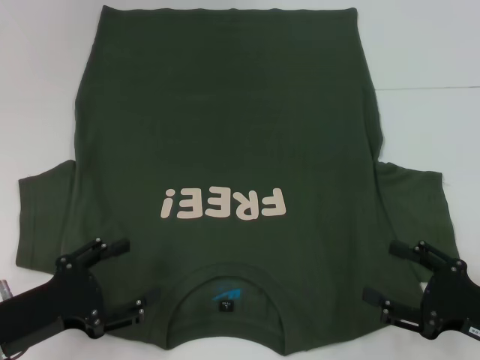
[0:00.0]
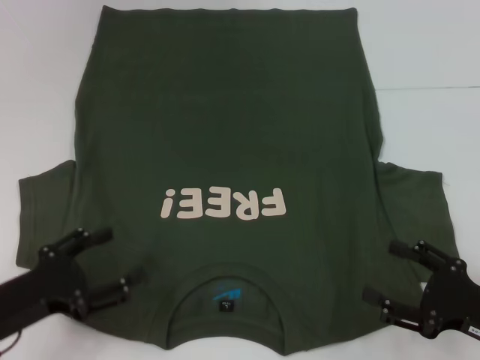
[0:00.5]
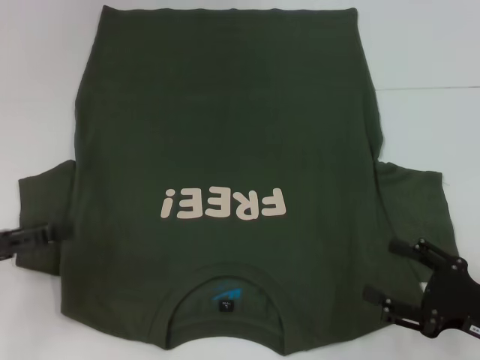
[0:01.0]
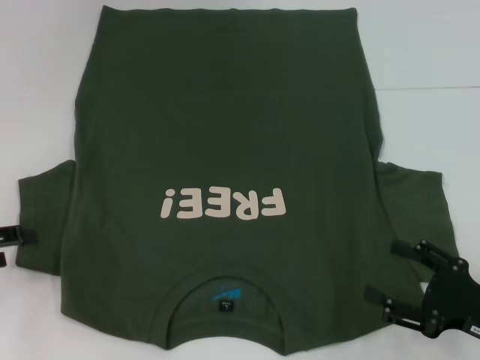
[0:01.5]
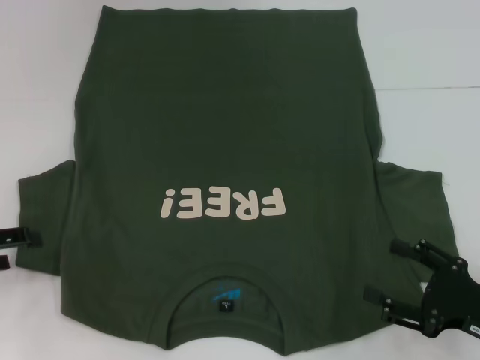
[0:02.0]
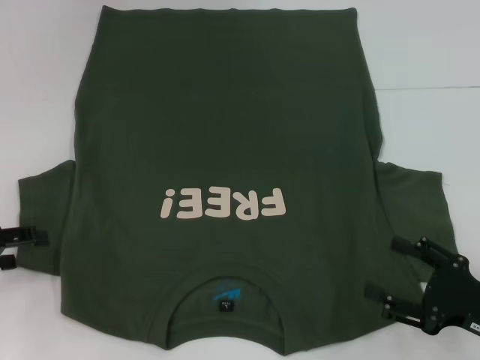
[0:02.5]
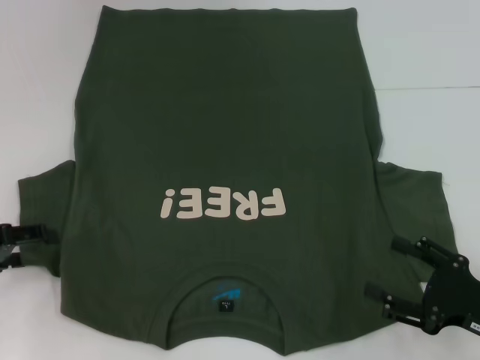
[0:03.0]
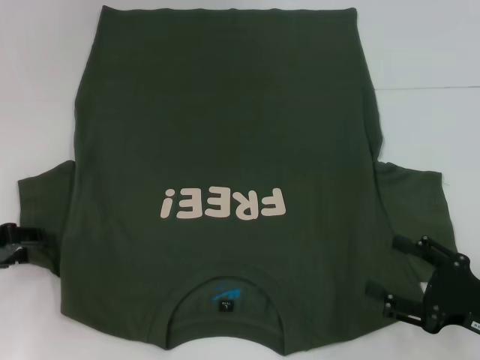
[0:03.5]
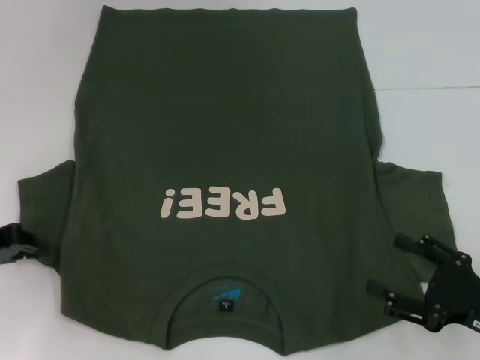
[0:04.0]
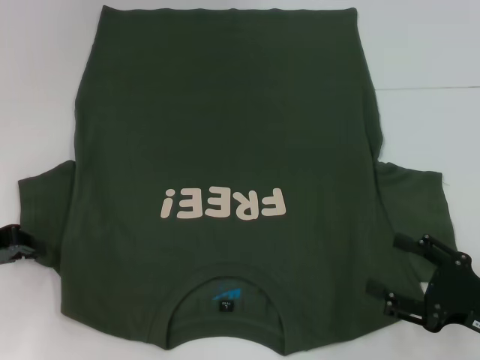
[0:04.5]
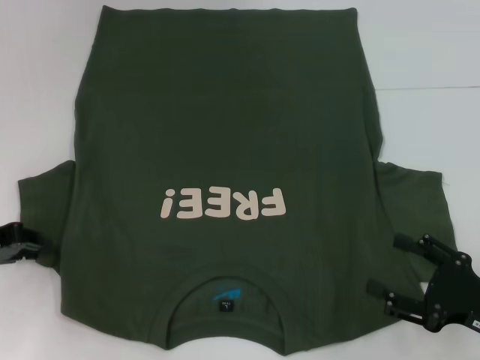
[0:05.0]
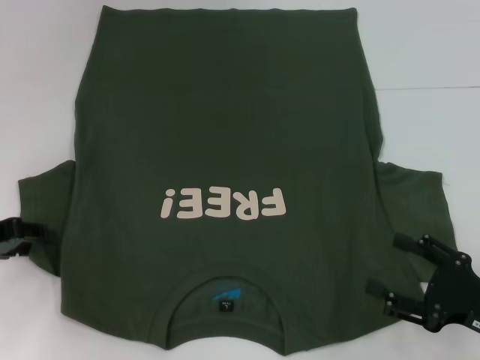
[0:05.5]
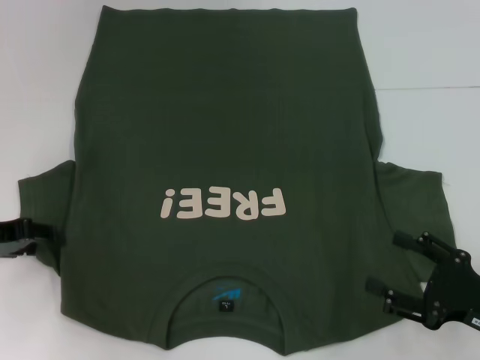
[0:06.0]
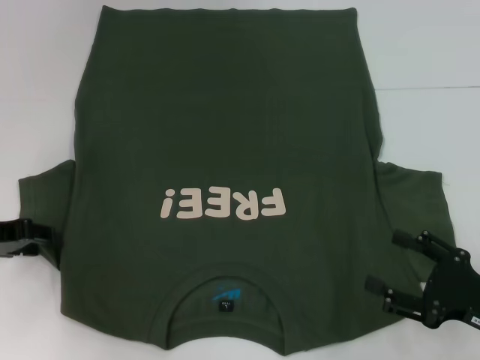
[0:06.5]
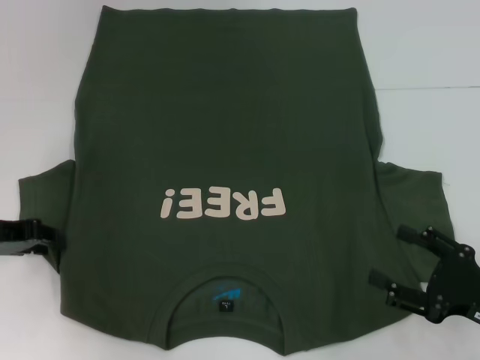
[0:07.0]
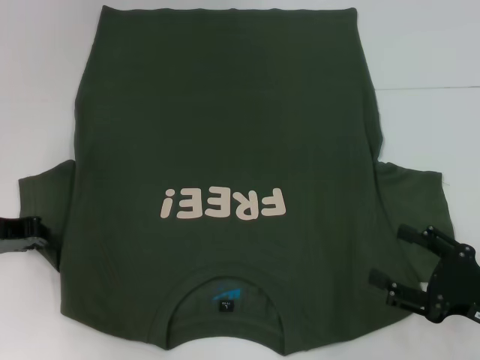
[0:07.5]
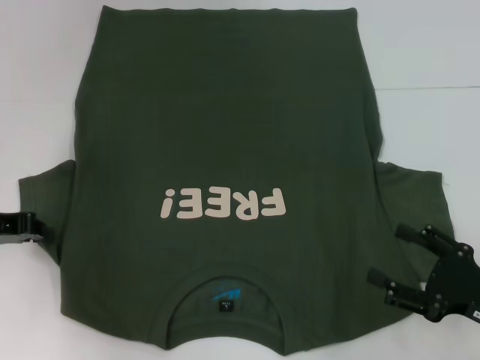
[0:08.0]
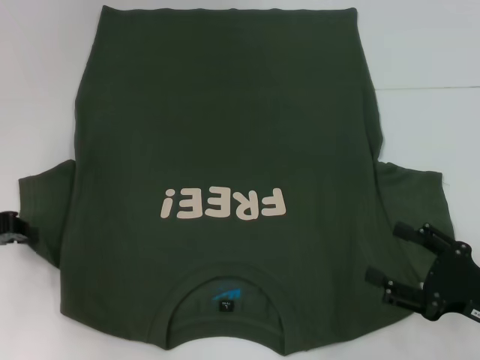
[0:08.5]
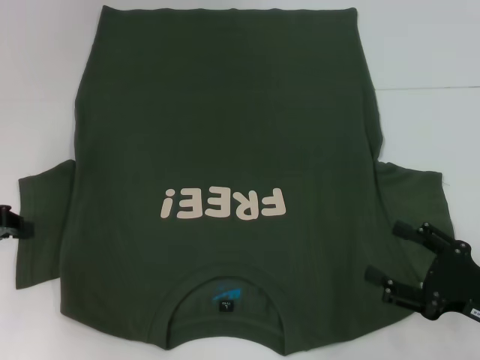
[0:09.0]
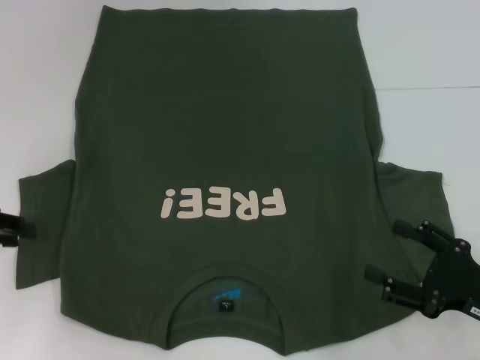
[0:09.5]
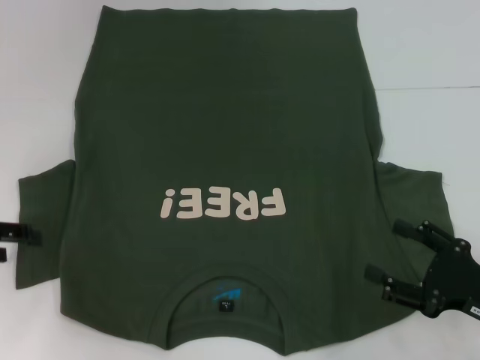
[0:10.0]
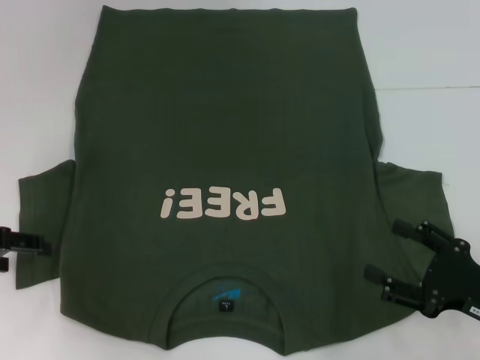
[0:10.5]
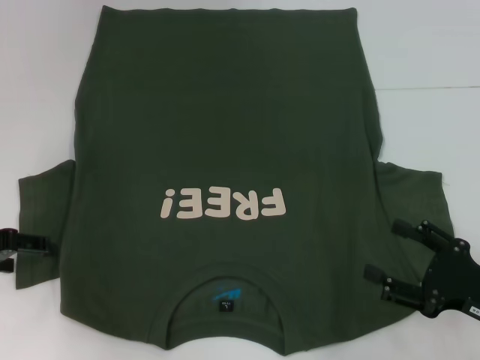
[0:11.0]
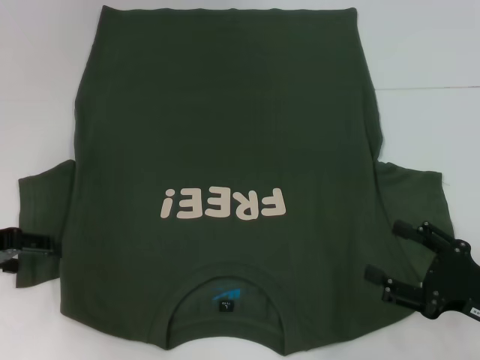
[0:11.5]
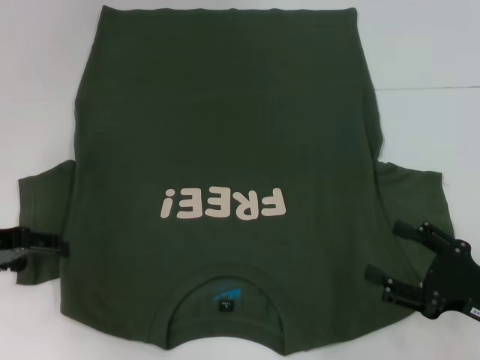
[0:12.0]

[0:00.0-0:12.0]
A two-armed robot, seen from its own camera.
0:00.0 to 0:02.0: The left gripper goes approximately 15 cm to the left, forward and upward.
0:02.0 to 0:04.0: The left gripper closes.
0:04.0 to 0:06.0: The grippers stay close to where they were, moving slightly.
0:06.0 to 0:08.0: The left gripper closes up.
0:08.0 to 0:10.0: The left gripper opens up.
0:10.0 to 0:12.0: The grippers make only small movements.

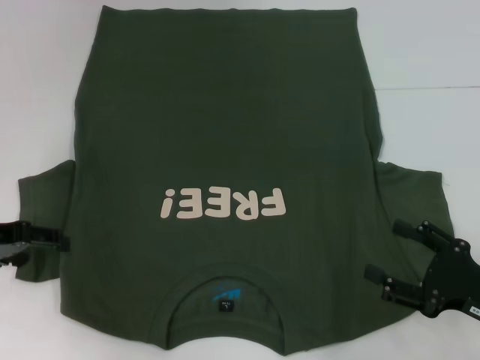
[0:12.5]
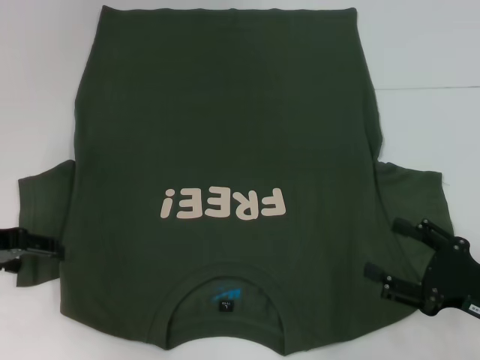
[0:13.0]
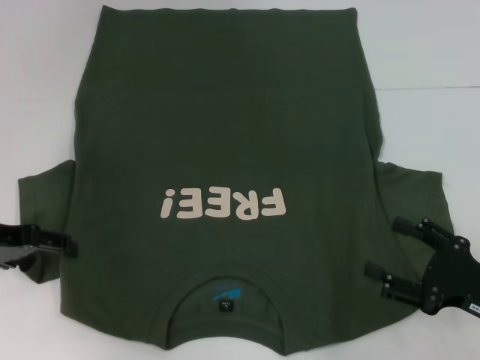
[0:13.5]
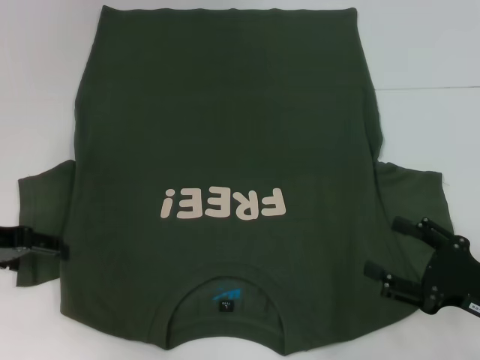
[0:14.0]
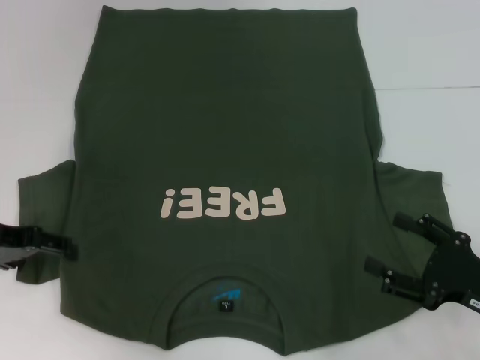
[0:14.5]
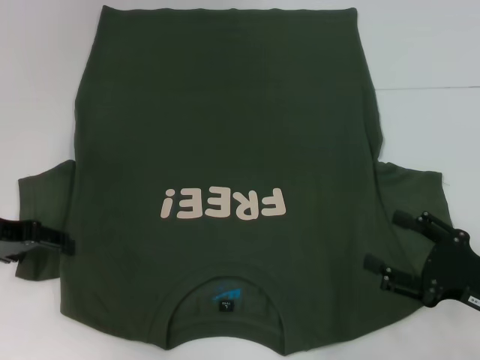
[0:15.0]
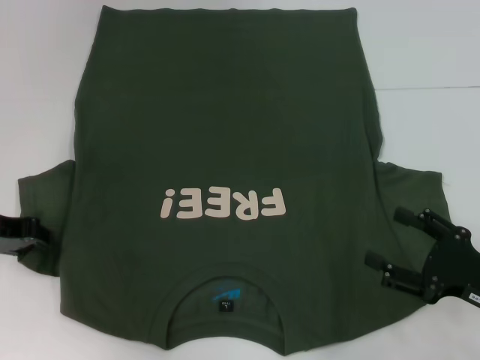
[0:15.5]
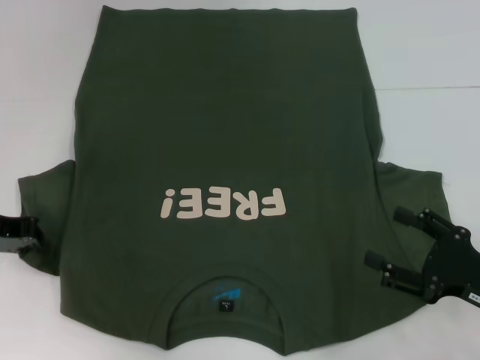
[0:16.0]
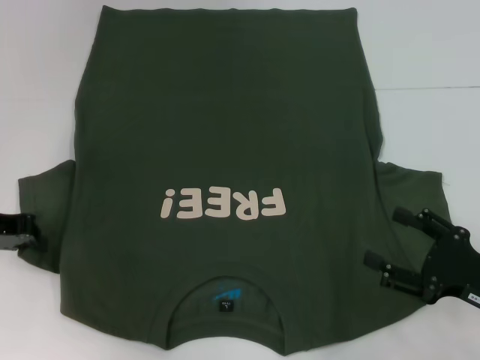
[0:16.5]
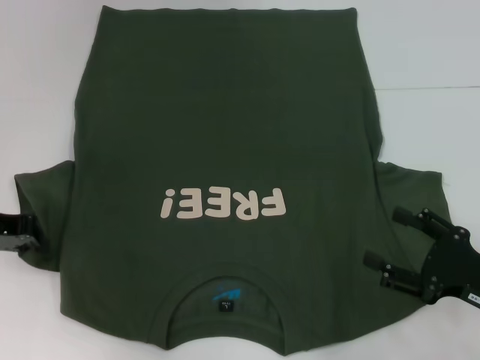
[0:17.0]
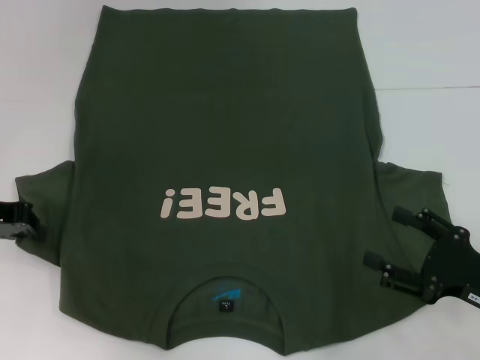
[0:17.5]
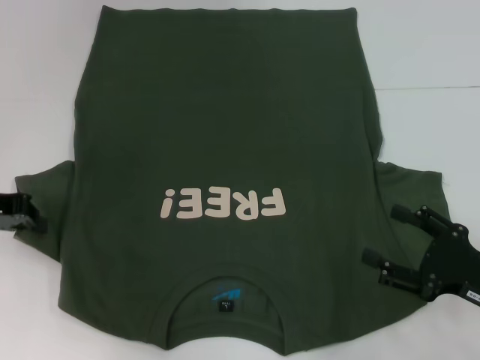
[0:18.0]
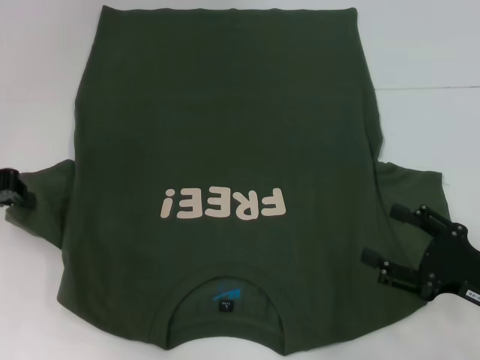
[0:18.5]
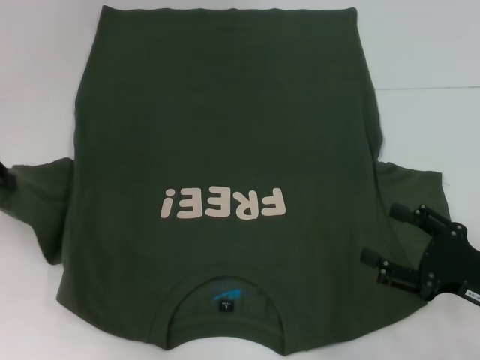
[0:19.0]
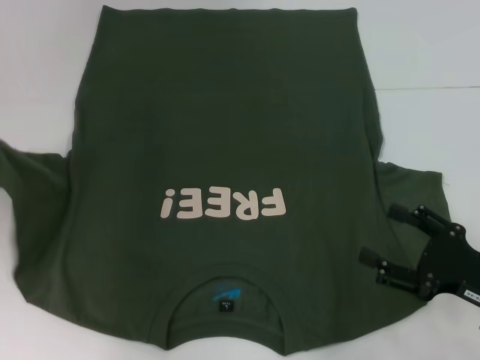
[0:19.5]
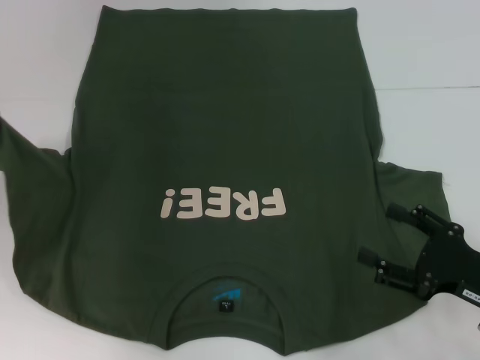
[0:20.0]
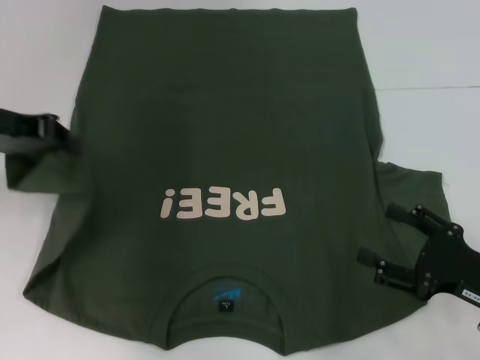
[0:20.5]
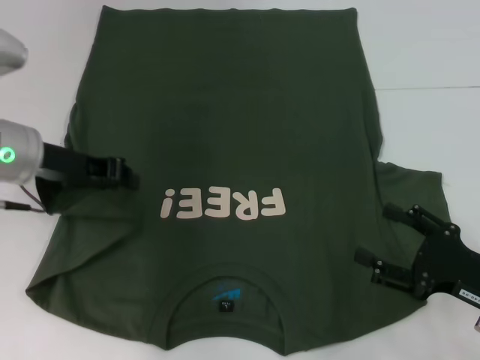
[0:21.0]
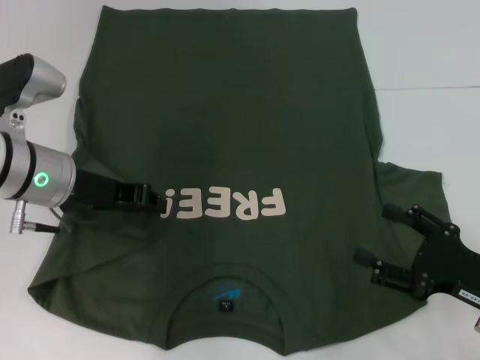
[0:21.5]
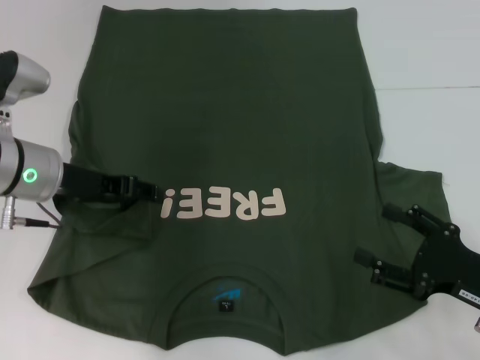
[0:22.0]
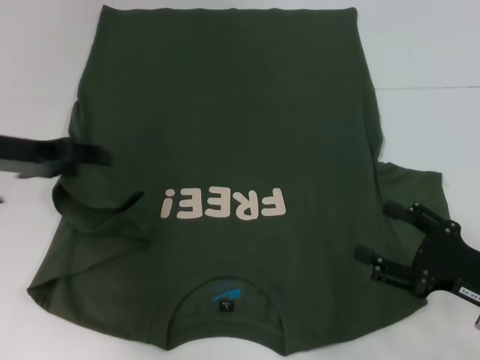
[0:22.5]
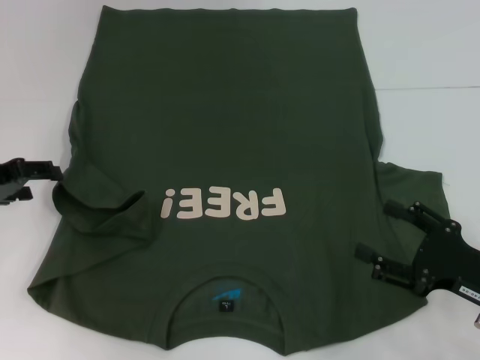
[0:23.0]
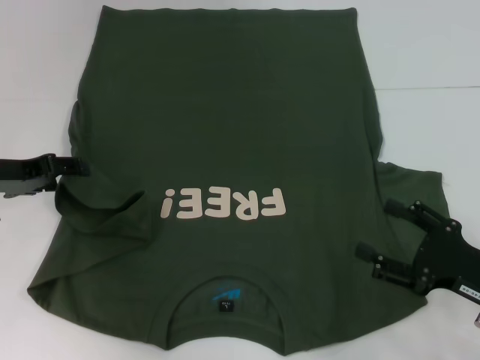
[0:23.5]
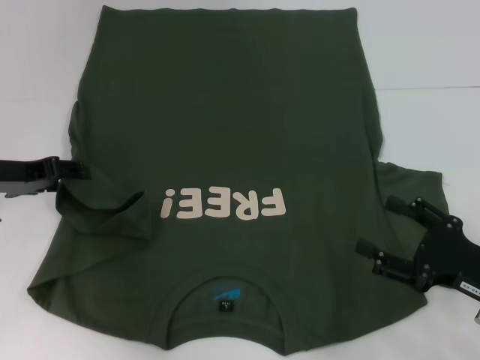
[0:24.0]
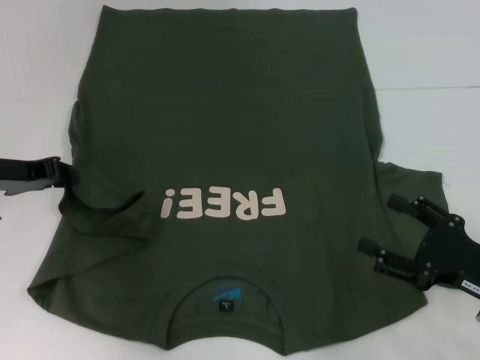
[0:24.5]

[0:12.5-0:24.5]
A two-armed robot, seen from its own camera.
0:12.5 to 0:14.5: The grippers make only small movements.
0:14.5 to 0:16.5: The left gripper closes up.
0:16.5 to 0:18.5: The left gripper ends up approximately 5 cm from where it was.
0:18.5 to 0:20.5: The left gripper moves roughly 5 cm.
0:20.5 to 0:22.5: The left gripper moves some 10 cm to the right and comes back, and opens its fingers.

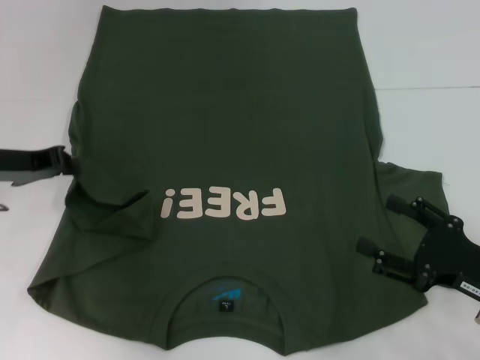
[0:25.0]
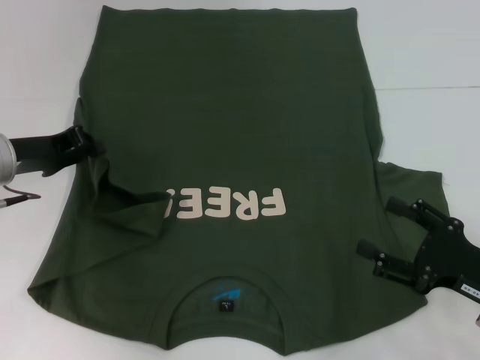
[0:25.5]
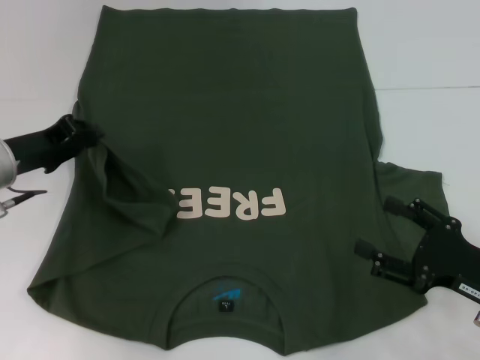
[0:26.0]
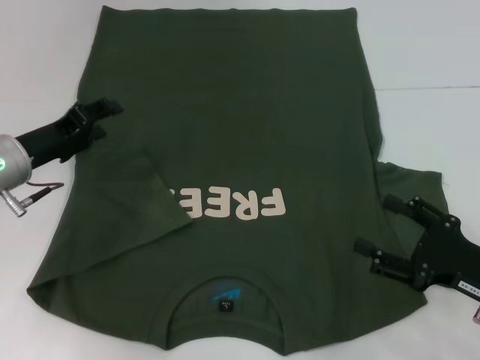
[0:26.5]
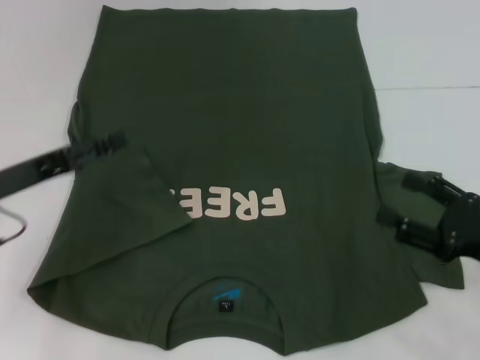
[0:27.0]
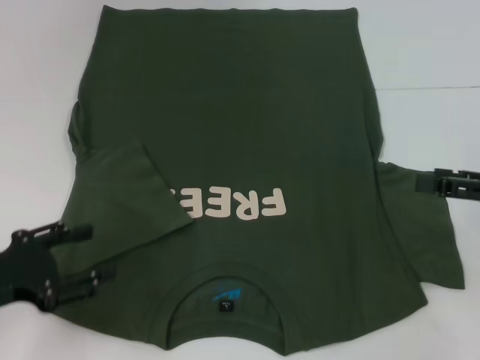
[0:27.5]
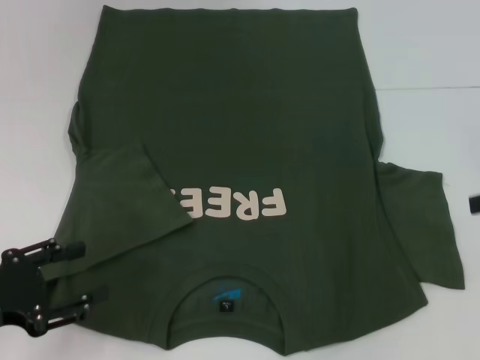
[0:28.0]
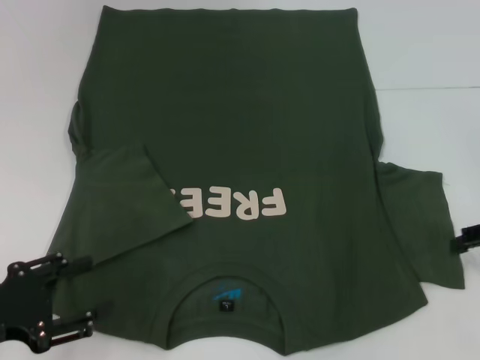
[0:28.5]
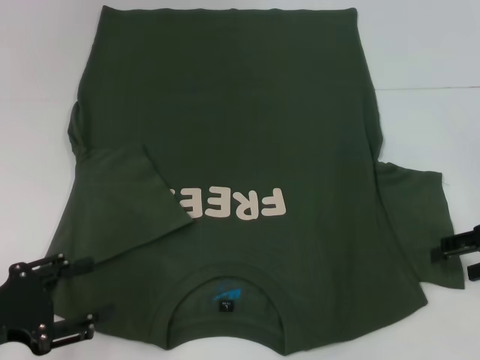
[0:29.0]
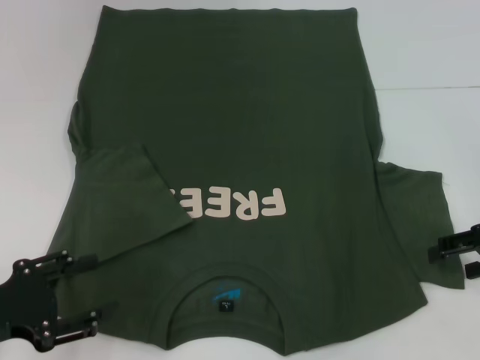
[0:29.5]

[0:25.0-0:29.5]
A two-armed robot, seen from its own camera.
0:25.0 to 0:27.0: The left gripper shifts roughly 5 cm backward, and opens.
0:27.0 to 0:29.5: The left gripper travels backward by some 10 cm; the right gripper moves forward and upward, roughly 10 cm.
